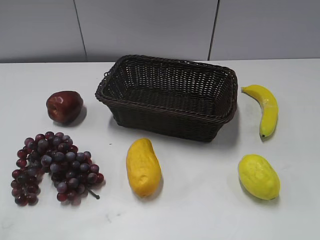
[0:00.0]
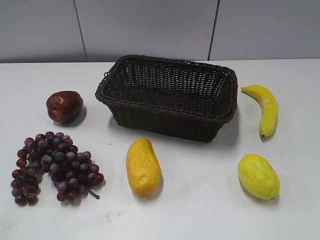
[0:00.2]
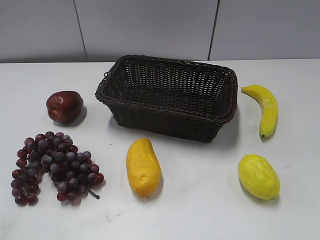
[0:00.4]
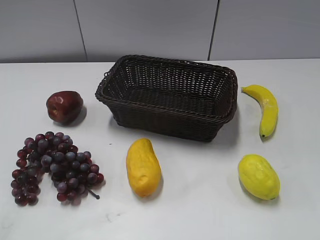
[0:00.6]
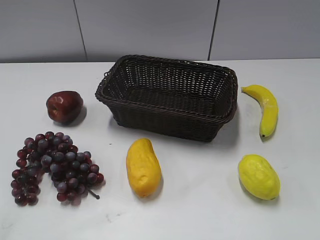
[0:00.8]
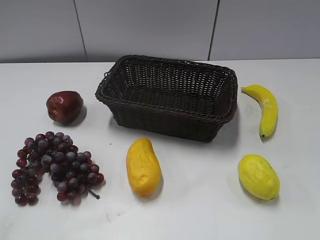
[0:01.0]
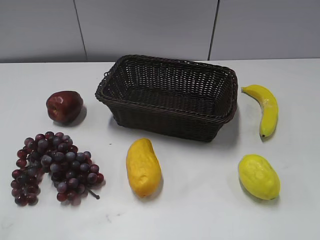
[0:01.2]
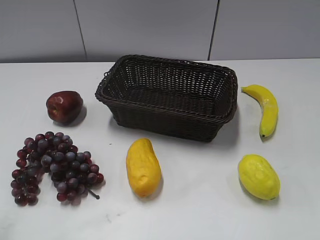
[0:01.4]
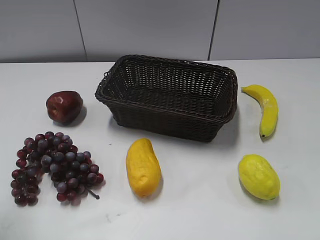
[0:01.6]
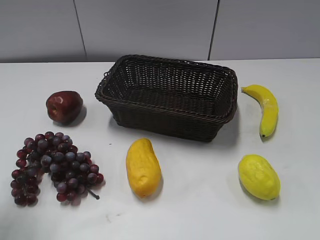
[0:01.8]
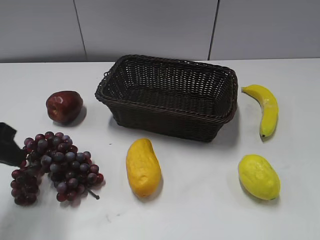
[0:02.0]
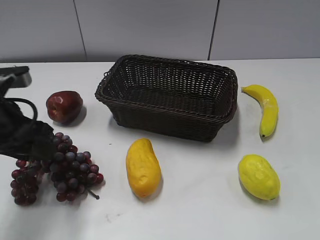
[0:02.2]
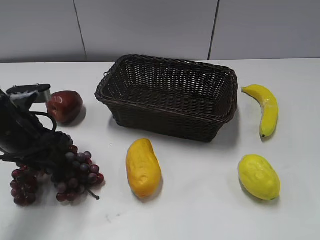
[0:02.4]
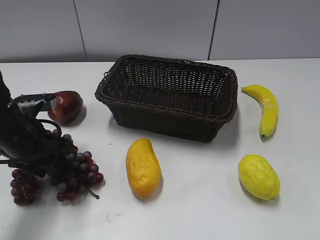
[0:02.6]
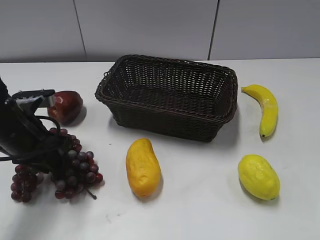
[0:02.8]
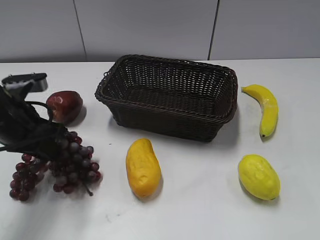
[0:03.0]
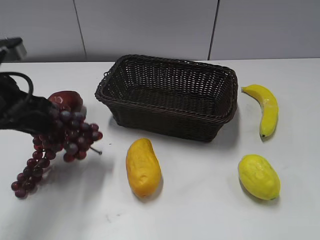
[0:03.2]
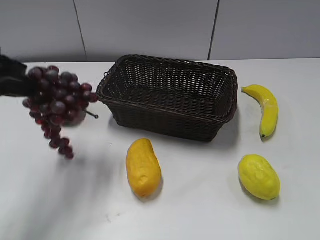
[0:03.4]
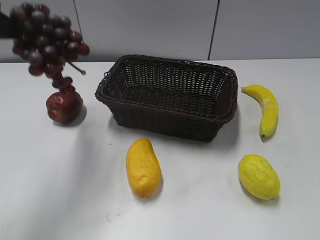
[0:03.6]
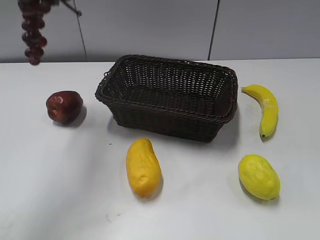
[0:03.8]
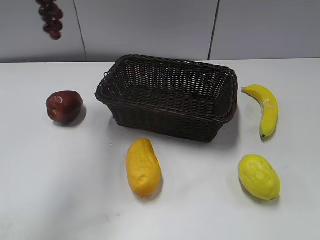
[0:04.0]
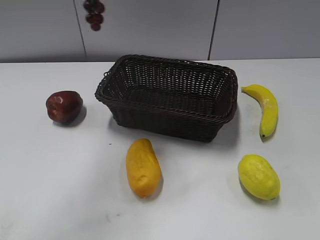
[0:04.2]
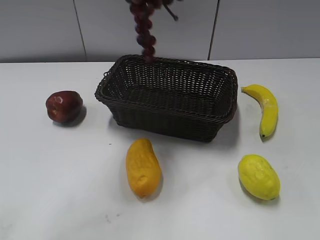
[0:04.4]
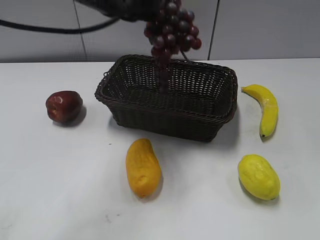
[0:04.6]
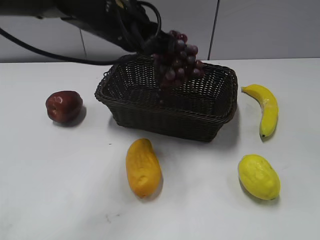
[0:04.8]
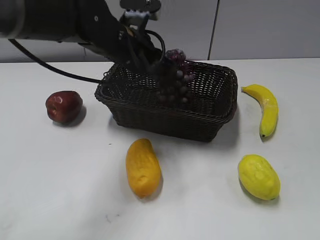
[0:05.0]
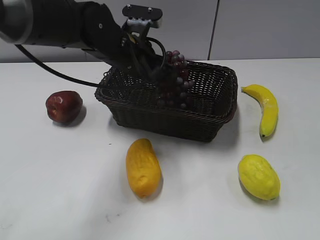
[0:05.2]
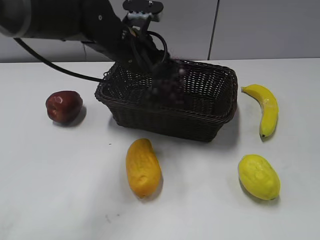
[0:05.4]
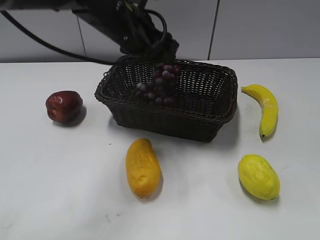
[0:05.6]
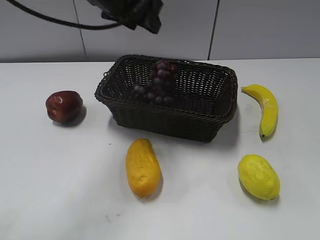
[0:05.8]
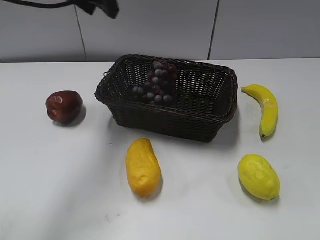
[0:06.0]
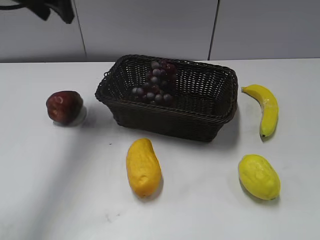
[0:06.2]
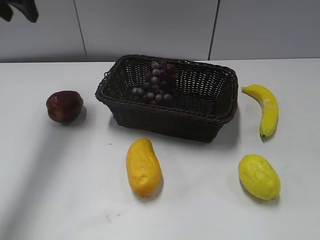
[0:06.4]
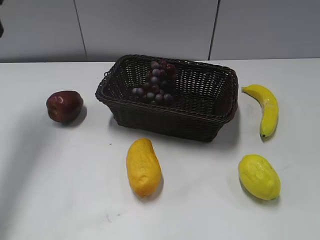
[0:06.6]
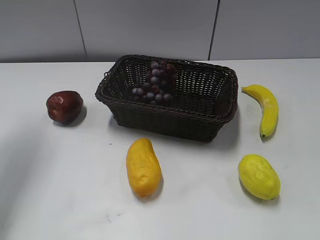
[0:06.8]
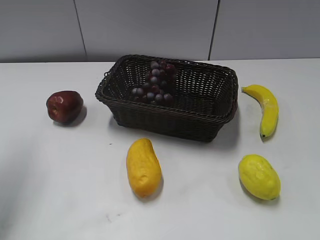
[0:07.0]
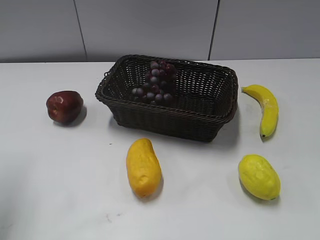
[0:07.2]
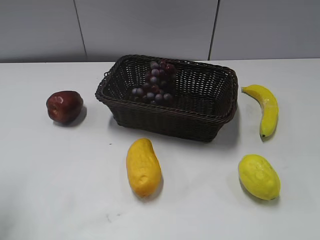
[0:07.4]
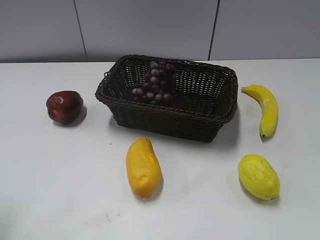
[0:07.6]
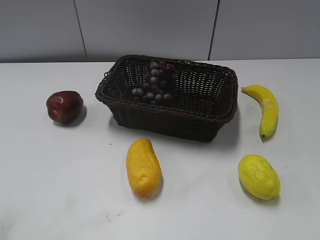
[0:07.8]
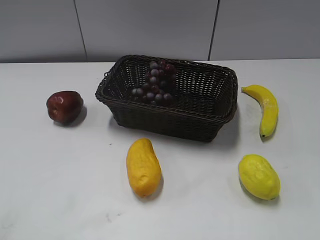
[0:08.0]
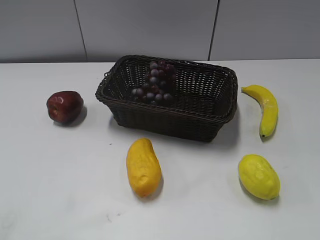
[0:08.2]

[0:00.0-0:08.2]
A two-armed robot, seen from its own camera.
Step, 0:02.0 to 0:02.8: Grasp the grape with left gripper.
Step, 0:03.0 to 0:05.8: Place the grape in the basket with left gripper.
0:01.6 to 0:03.2: The left gripper shifts some 15 cm forward and to the right, and closes.
0:03.2 to 0:05.0: The left gripper shifts about 20 cm to the right and forward, and moves about 20 cm upward and comes back.
0:05.0 to 0:06.6: The left gripper is displaced to the left and upward by roughly 30 cm, and opens up.
0:06.6 to 0:08.2: The left gripper travels backward by some 35 cm.

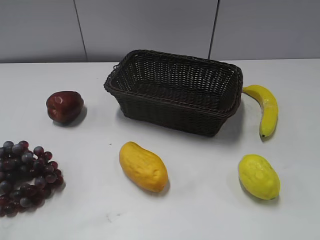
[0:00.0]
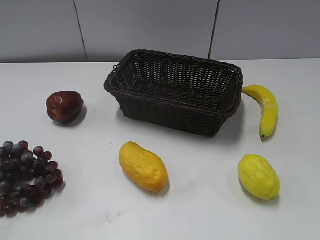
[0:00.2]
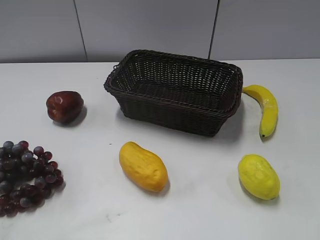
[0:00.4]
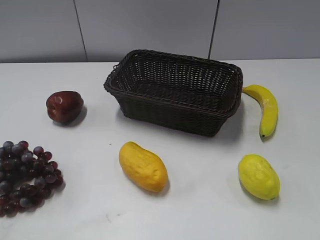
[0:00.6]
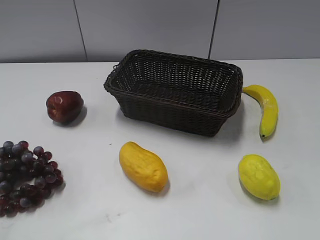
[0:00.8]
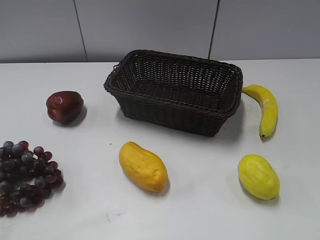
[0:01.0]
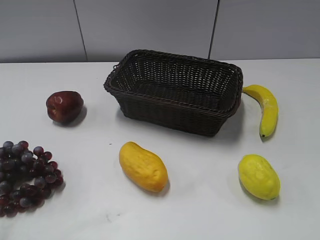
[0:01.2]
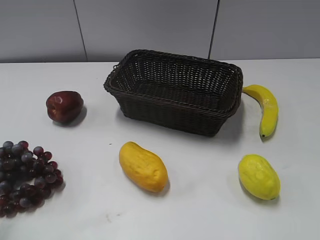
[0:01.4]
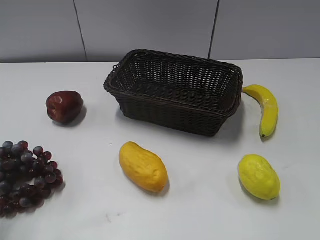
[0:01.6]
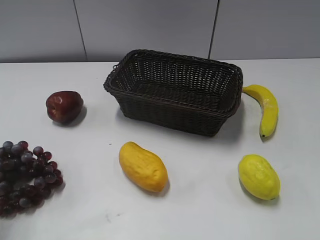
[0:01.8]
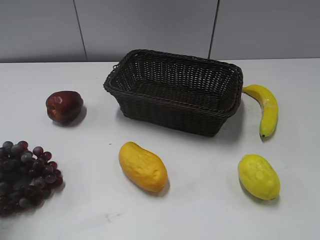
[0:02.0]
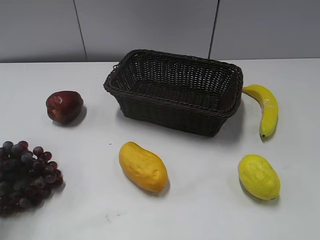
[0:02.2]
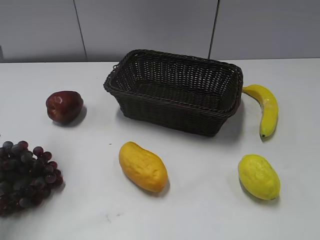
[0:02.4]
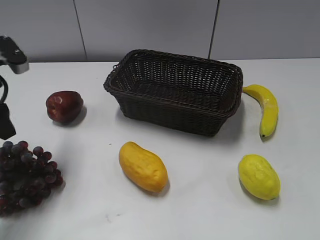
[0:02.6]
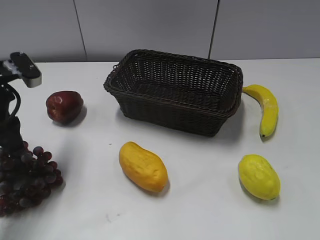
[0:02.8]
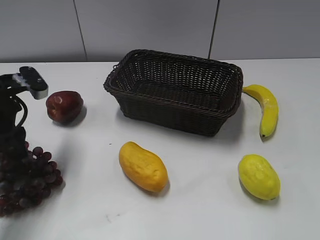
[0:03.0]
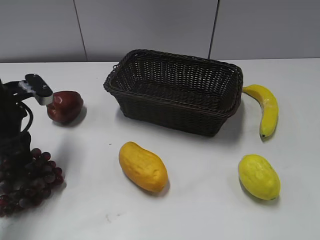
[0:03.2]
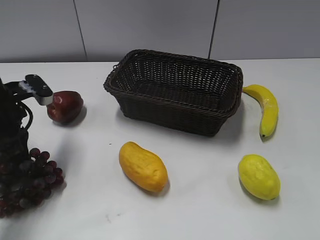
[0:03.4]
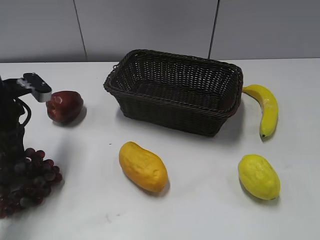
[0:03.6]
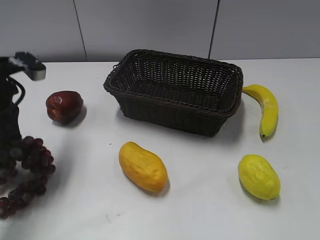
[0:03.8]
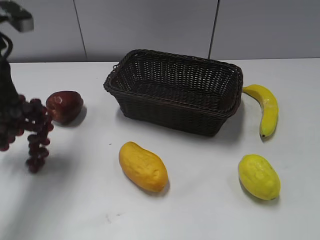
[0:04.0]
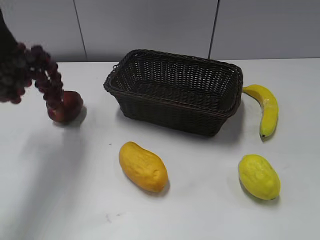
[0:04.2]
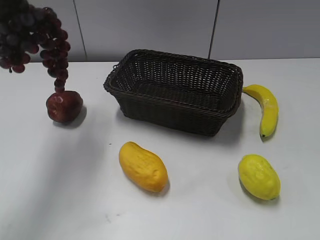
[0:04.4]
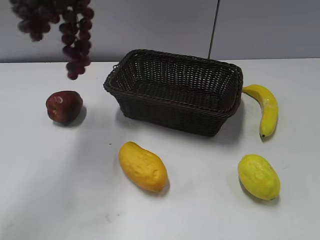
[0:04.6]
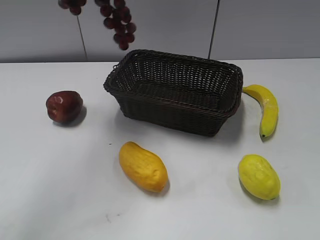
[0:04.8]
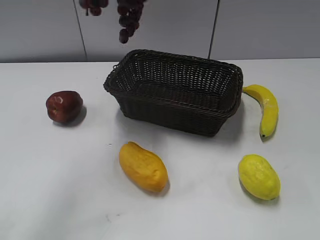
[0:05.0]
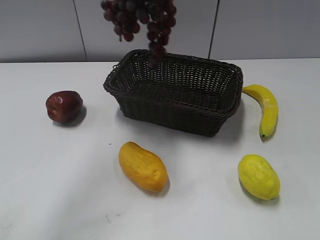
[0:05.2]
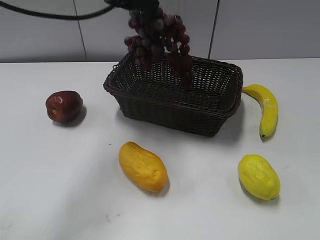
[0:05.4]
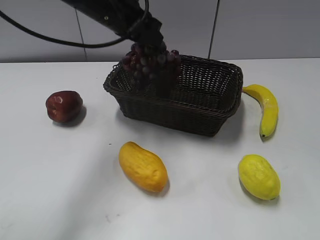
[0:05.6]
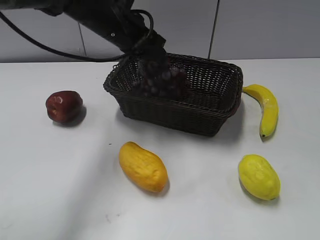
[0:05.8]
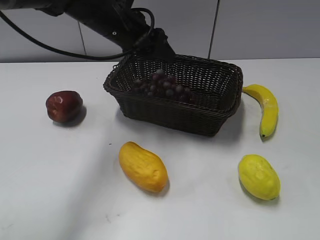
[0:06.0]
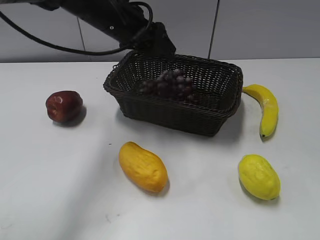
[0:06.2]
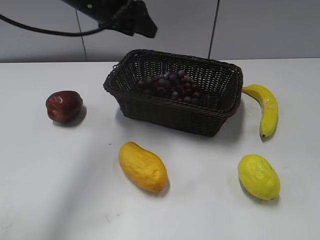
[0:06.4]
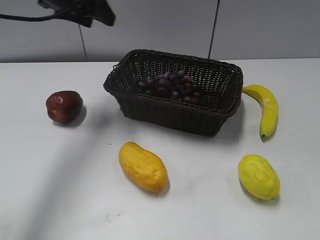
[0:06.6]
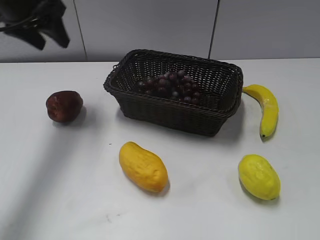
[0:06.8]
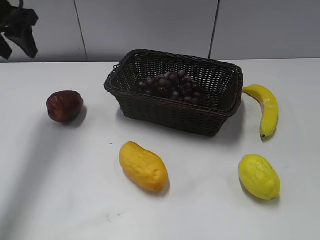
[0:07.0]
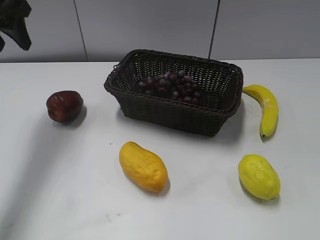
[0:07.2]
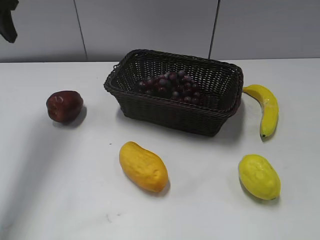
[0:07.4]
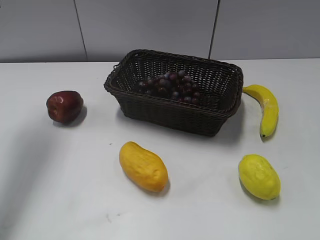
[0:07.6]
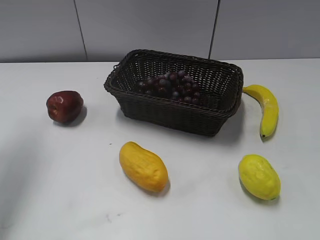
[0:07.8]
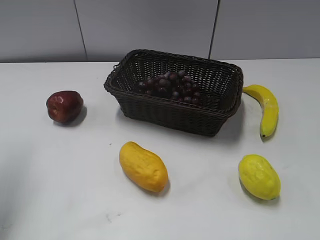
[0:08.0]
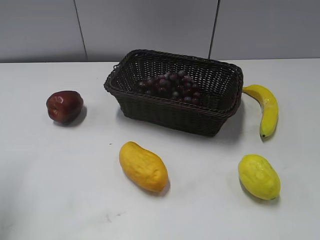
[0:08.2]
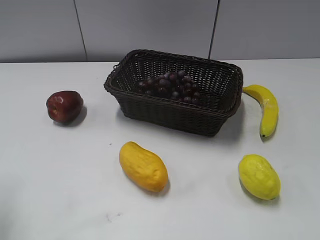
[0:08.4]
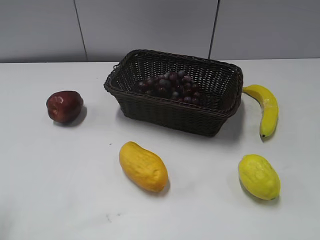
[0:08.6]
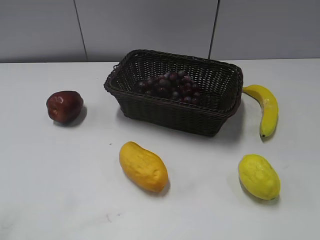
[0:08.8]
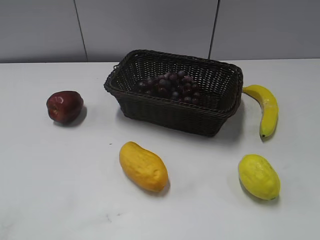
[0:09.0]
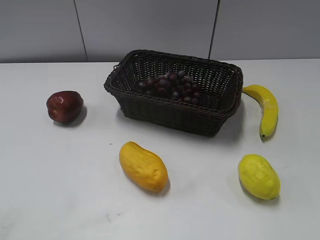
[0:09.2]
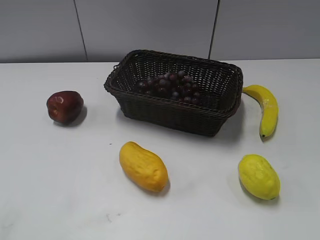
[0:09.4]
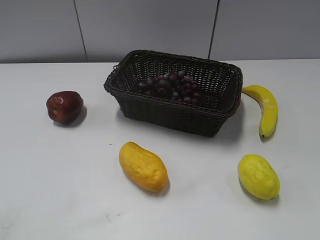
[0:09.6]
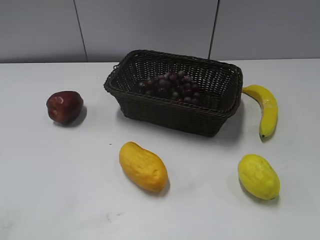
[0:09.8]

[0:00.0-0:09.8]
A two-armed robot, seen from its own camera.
Step, 0:02.4 to 0:03.8: Grasp the grape with left gripper.
Step, 0:04.0 to 0:06.0: Place the grape in the basket with left gripper.
0:01.4 to 0:02.8: The left gripper travels forward and downward by roughly 20 cm.
0:02.8 to 0:04.2: The left gripper heads upward, covering approximately 15 cm, and closes its fingers.
0:04.2 to 0:05.6: The left gripper goes some 20 cm to the right, forward and downward.
0:05.6 to 0:07.0: The left gripper is displaced to the left by approximately 20 cm, and opens.
0:07.0 to 0:08.4: The left gripper is displaced backward by some 25 cm.
